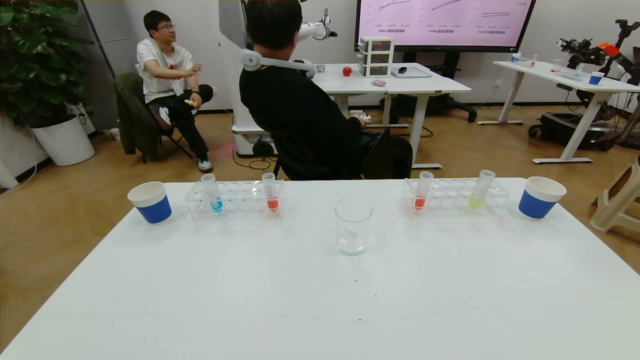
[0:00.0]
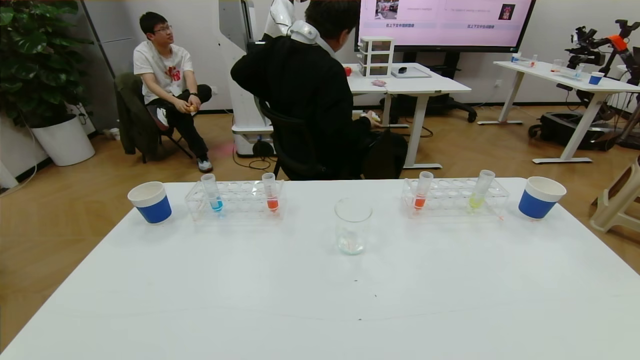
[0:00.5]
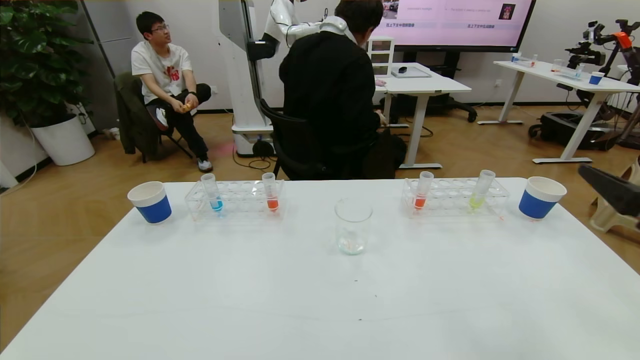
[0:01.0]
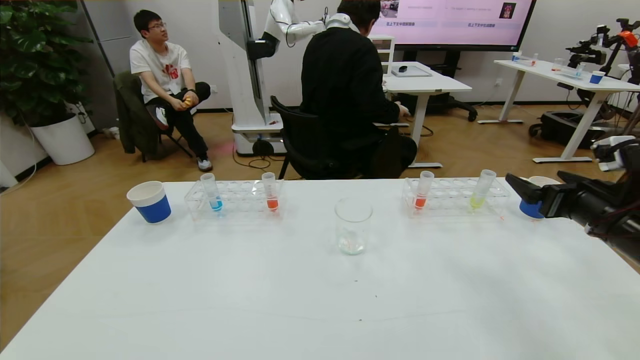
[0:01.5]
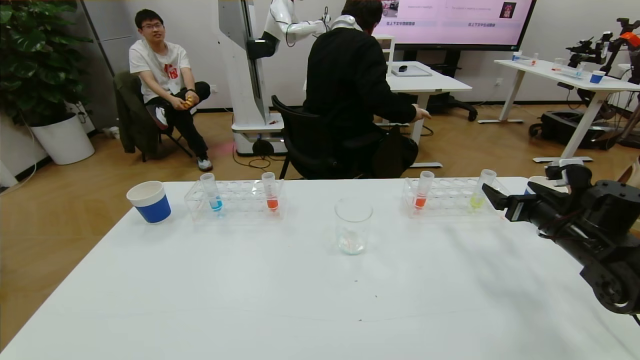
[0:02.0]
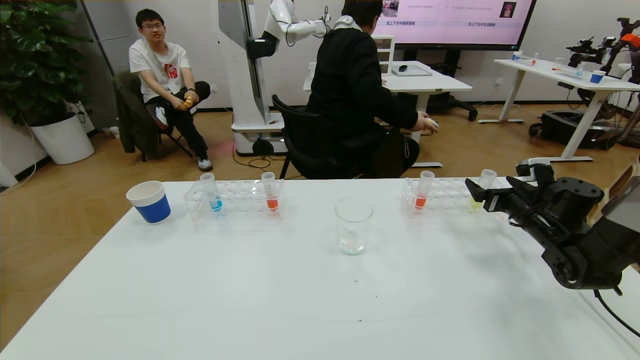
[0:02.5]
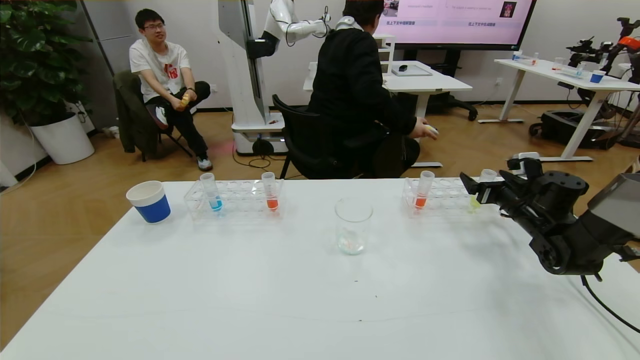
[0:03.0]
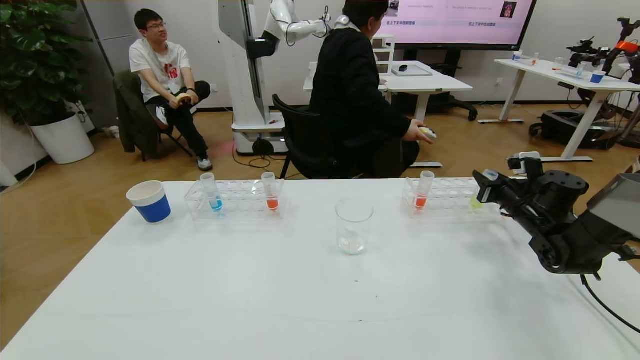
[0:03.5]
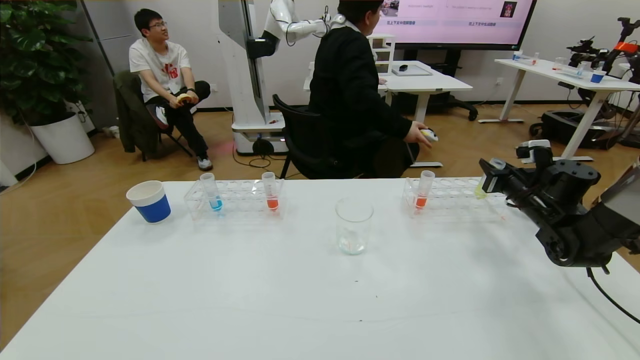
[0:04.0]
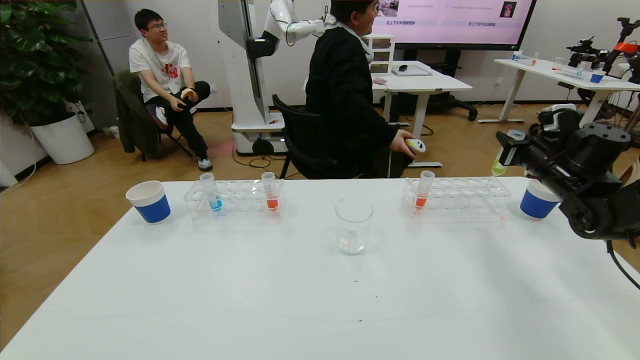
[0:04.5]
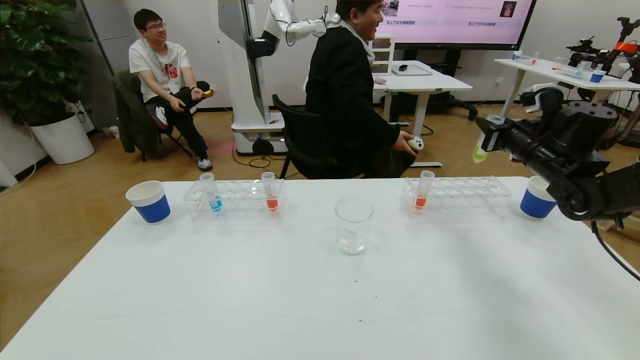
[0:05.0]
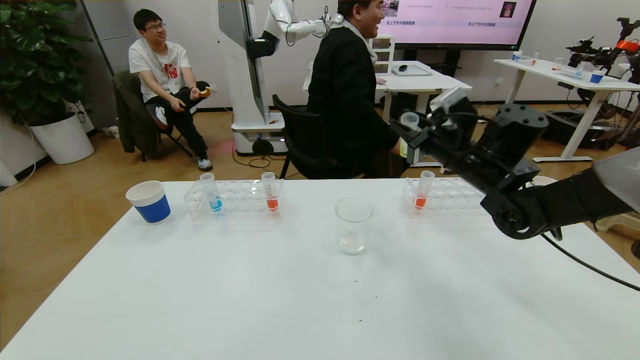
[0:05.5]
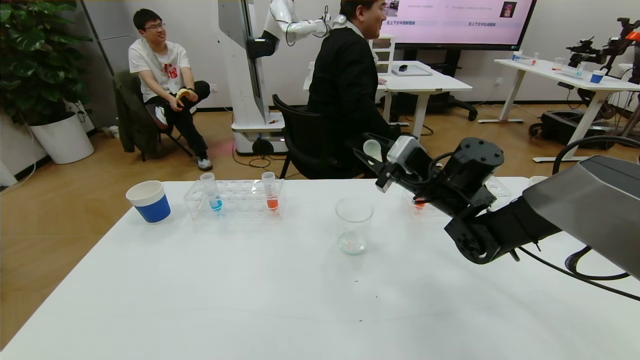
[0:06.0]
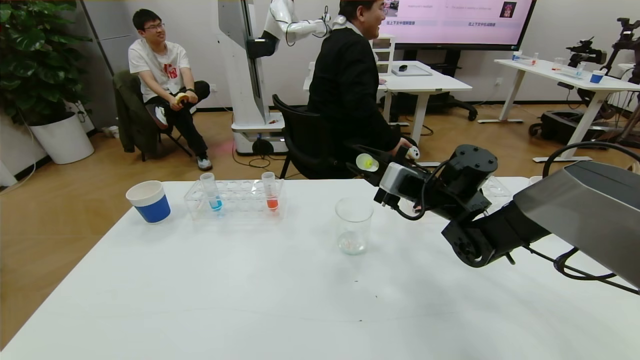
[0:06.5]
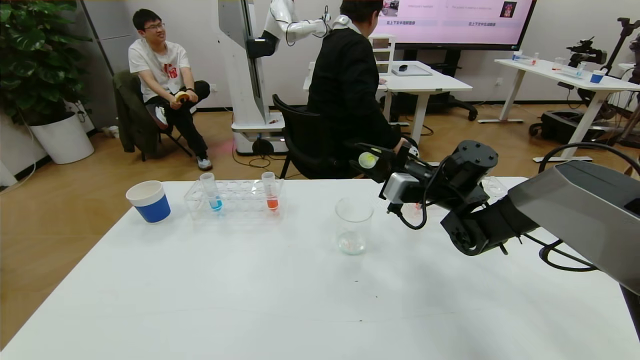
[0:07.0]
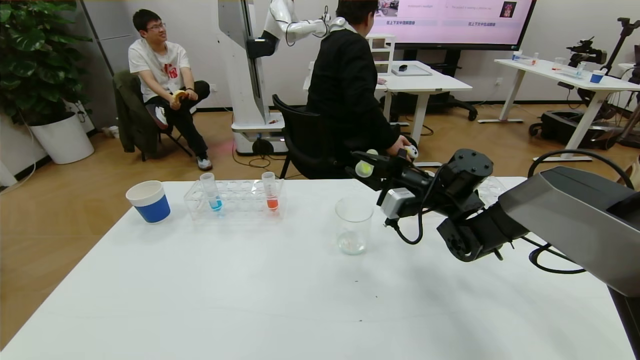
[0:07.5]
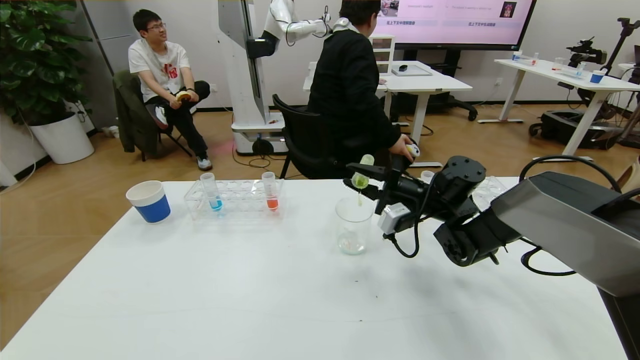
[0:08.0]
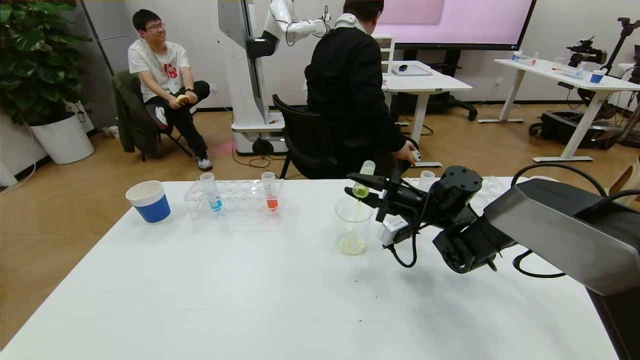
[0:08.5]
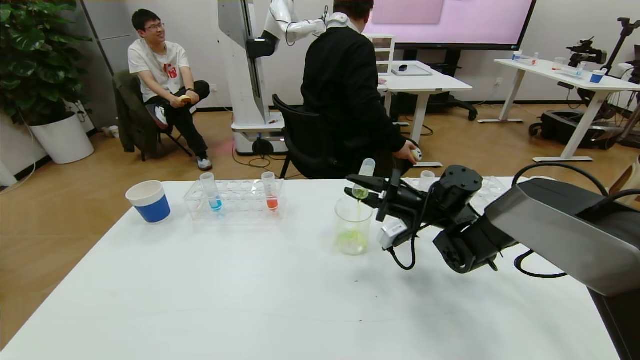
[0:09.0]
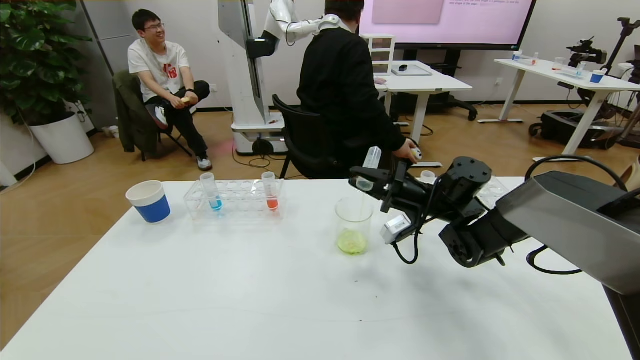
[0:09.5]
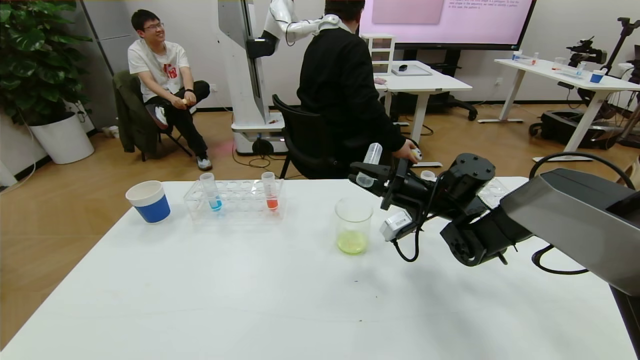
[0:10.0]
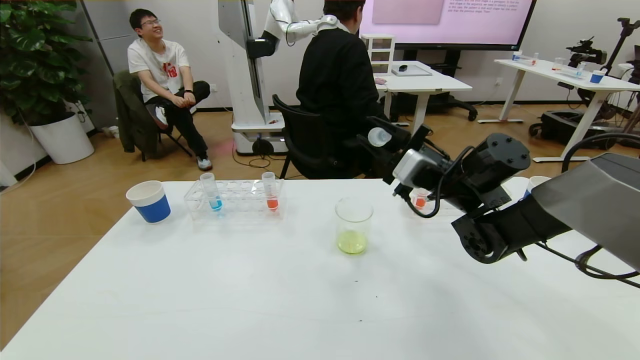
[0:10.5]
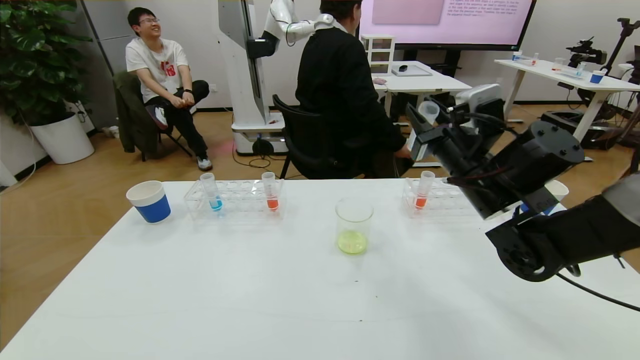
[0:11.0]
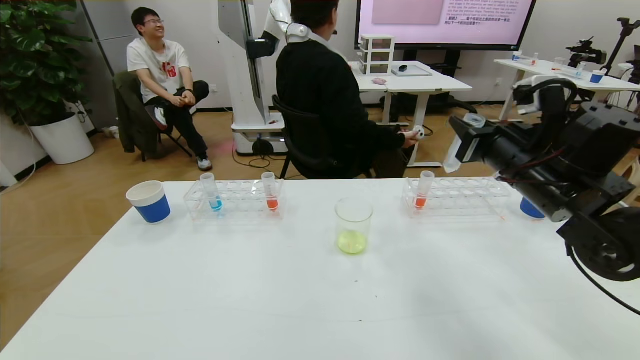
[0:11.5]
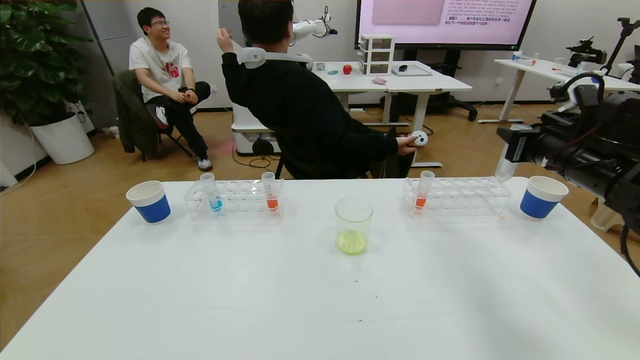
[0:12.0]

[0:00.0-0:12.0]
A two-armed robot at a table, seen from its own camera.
Task of the whole recording: pick up the test tube with yellow pigment and the test tube with blue pigment by grippers and pour them into the beaker.
0:00.0 to 0:02.0: The right gripper shifts some 35 cm forward.
0:02.0 to 0:04.0: The right gripper heads forward, covering some 10 cm, and closes its fingers.
0:04.0 to 0:06.0: The right gripper shifts approximately 20 cm to the left.
0:06.0 to 0:08.0: The right gripper ends up about 5 cm from where it was.
0:08.0 to 0:10.0: The grippers stay close to where they were, moving slightly.
0:10.0 to 0:12.0: The right gripper travels to the right, upward and backward by roughly 20 cm.

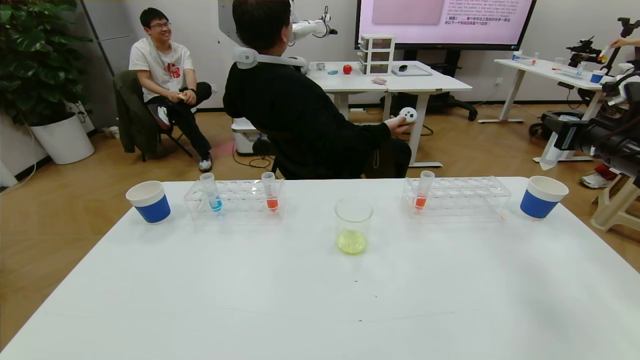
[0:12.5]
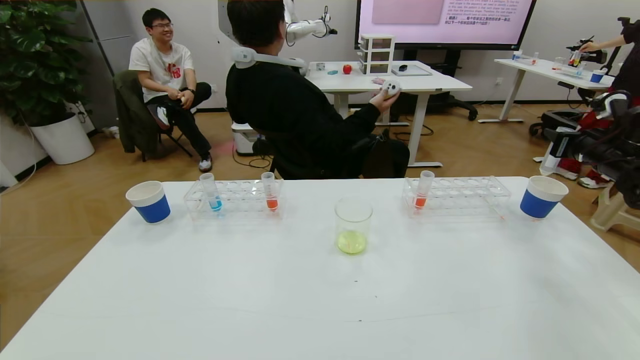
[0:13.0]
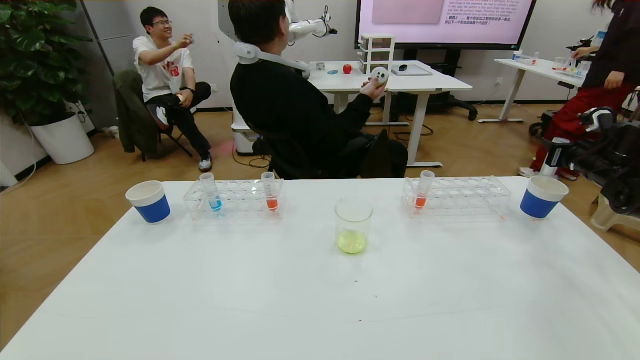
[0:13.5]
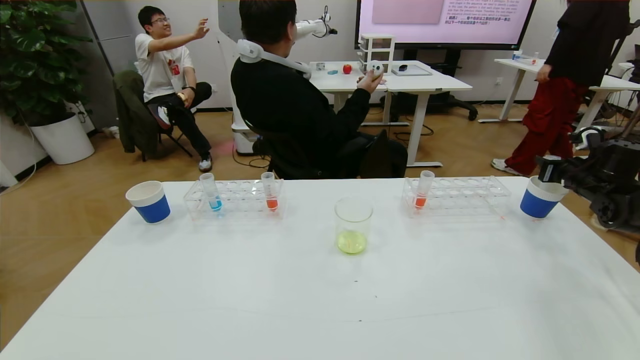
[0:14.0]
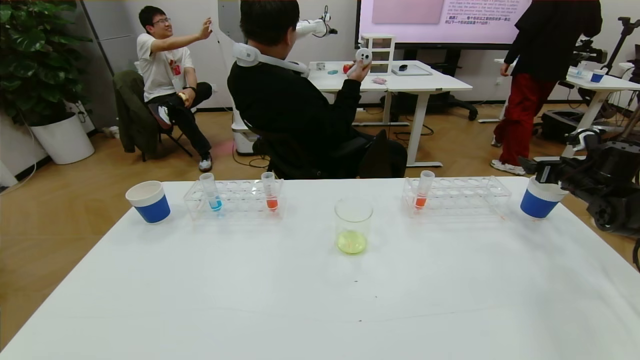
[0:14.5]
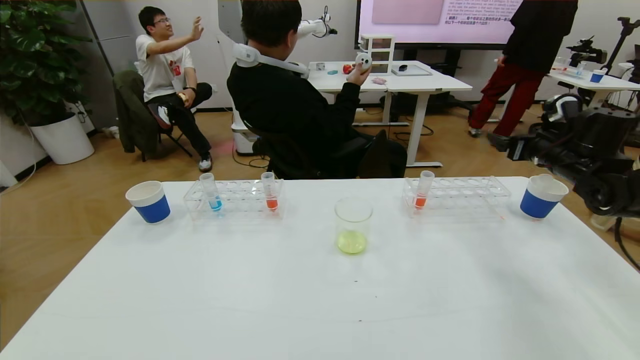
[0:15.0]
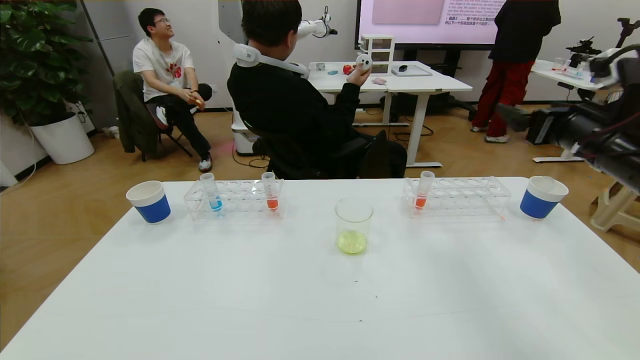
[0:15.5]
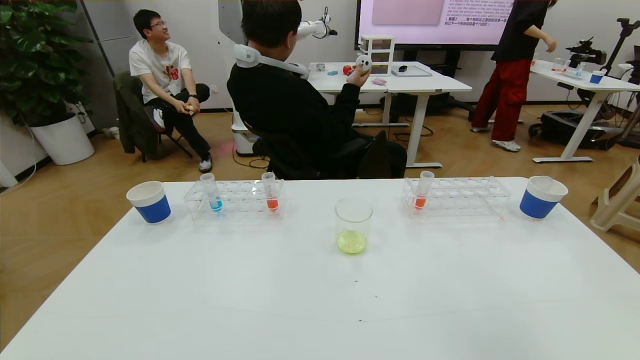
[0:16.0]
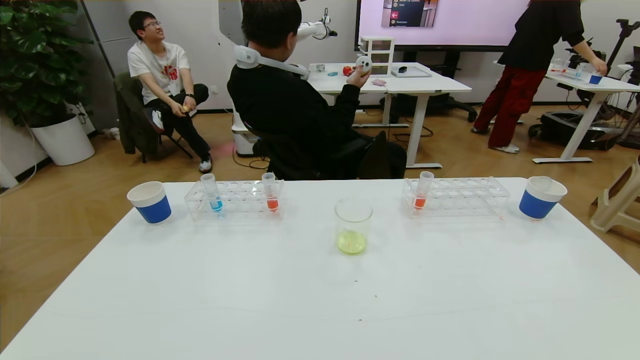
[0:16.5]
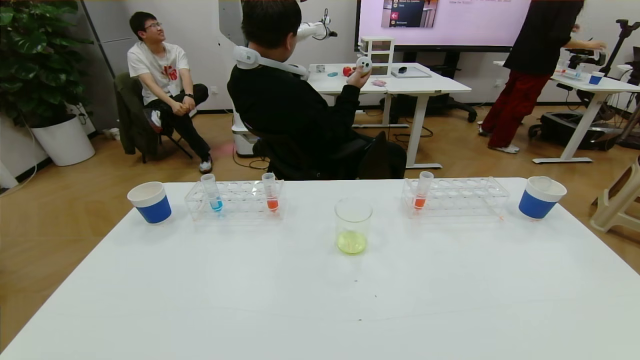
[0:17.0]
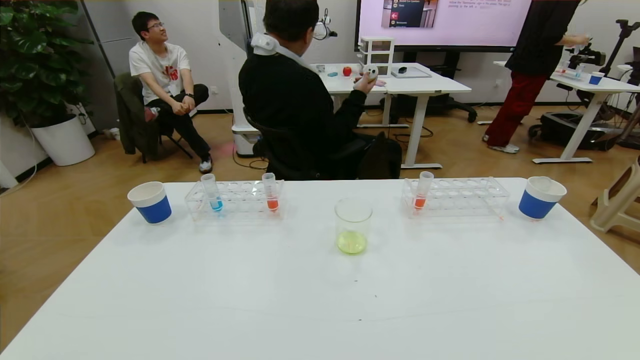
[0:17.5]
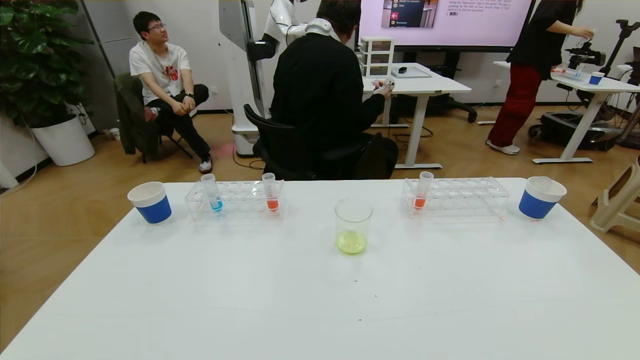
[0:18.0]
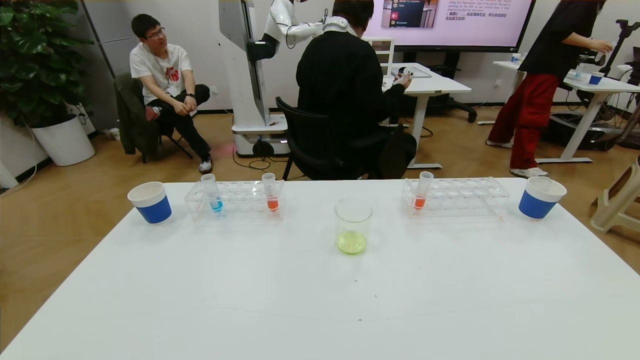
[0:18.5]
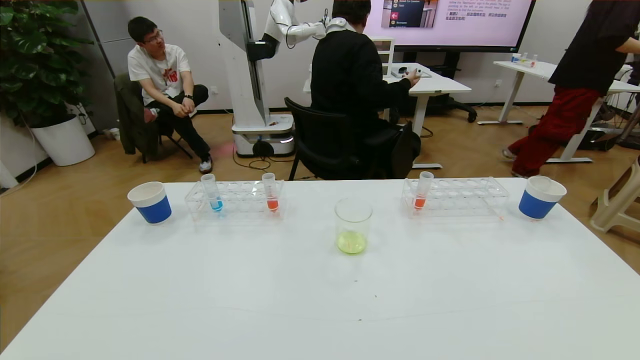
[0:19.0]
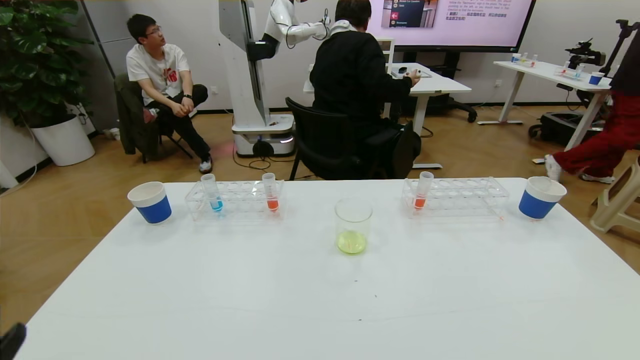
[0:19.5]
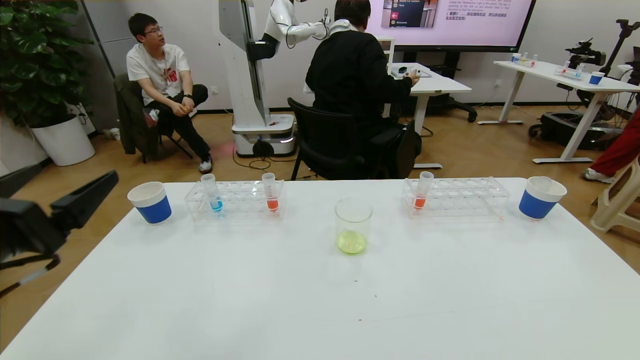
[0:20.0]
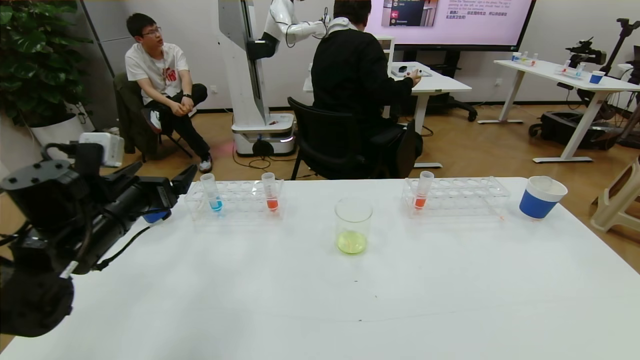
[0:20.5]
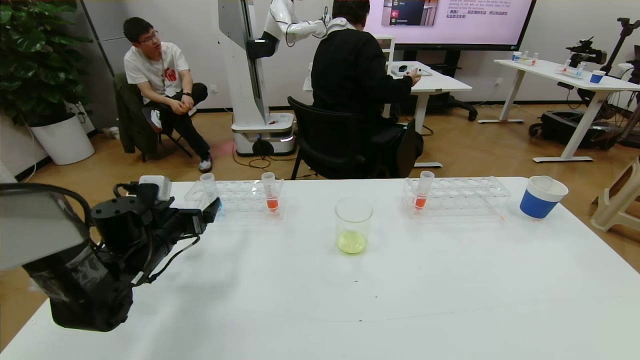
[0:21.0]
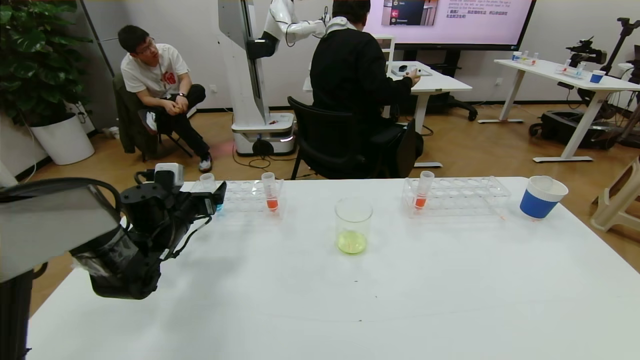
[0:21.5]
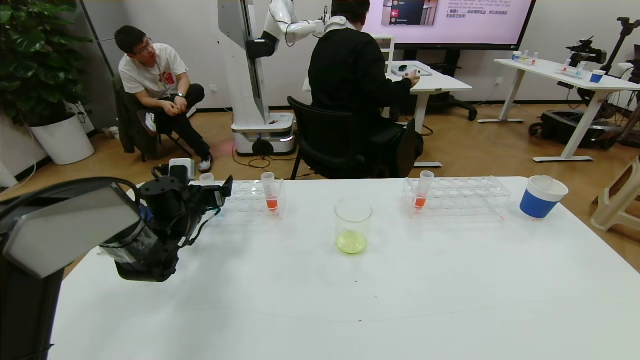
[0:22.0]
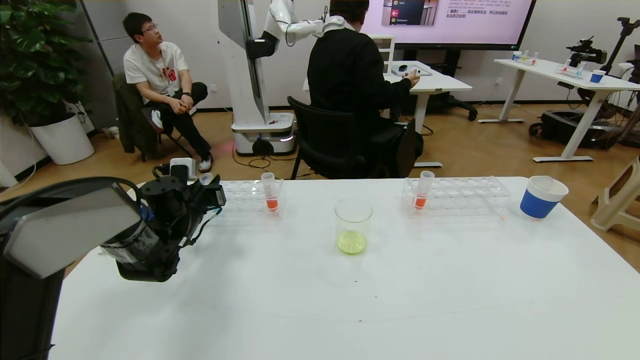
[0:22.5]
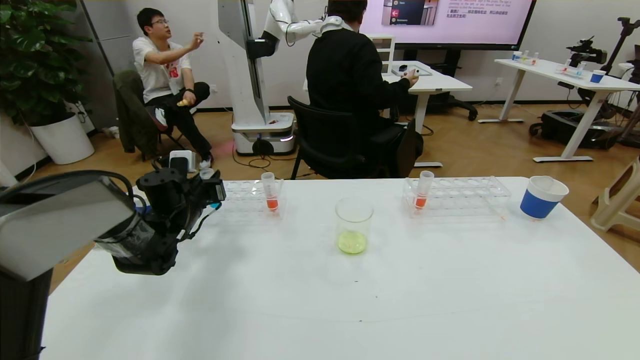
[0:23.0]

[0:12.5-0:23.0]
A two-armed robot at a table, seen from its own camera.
Task of the whole recording: pick up the test tube with yellow pigment and the test tube with blue pigment by grippers and pour them into the beaker.
Step, 0:12.5 to 0:18.0: Pour the yellow reagent into the graduated cylinder and place the test tube into the paper cup.
0:12.5 to 0:14.5: The right gripper is displaced downward, forward and to the right by approximately 15 cm, and opens.
0:14.5 to 0:16.5: The right gripper heads backward, covering approximately 40 cm.
0:16.5 to 0:19.0: The right gripper moves downward, approximately 20 cm.
0:19.0 to 0:21.0: The left gripper moves forward, about 35 cm.
0:21.0 to 0:23.0: The left gripper is displaced forward by about 10 cm, and closes.
